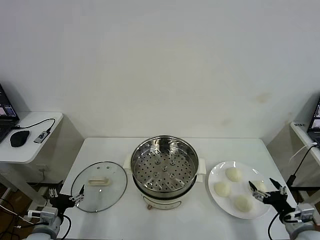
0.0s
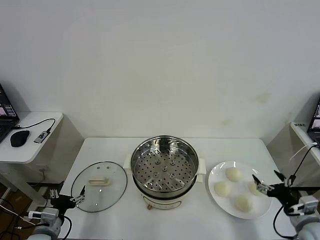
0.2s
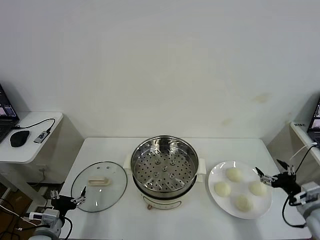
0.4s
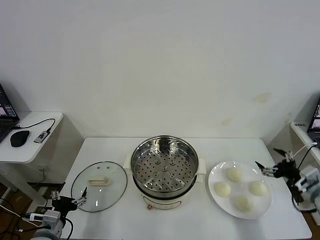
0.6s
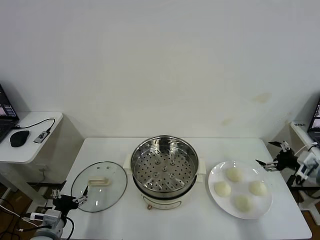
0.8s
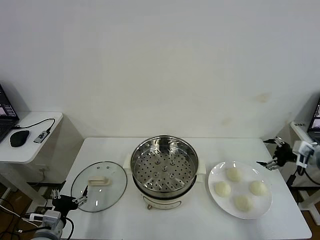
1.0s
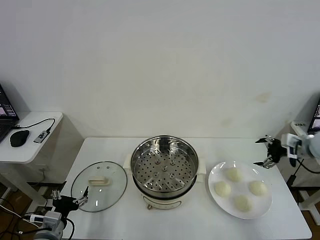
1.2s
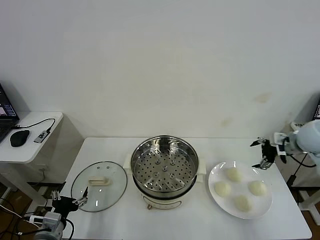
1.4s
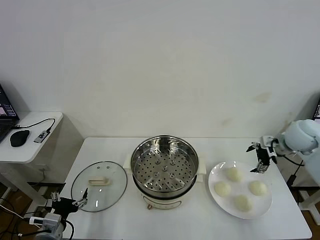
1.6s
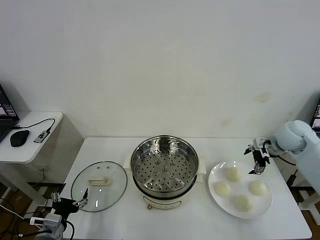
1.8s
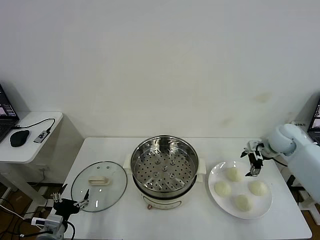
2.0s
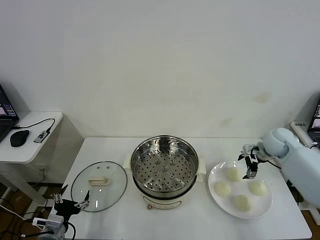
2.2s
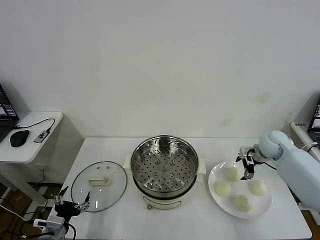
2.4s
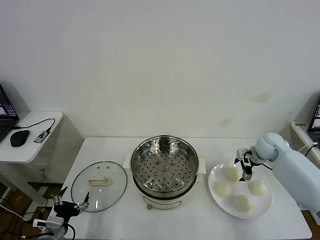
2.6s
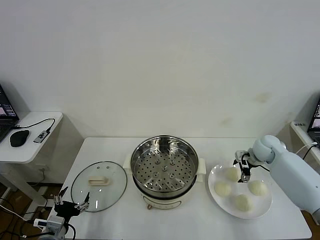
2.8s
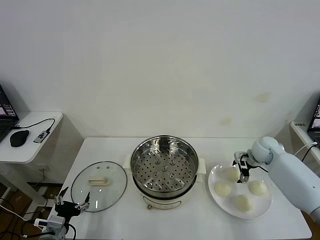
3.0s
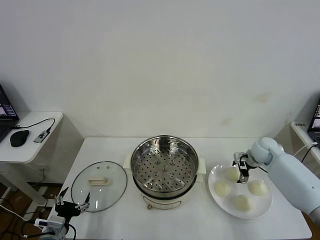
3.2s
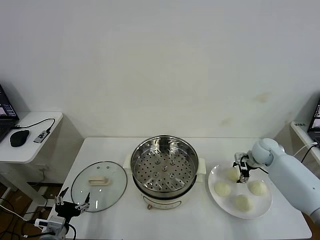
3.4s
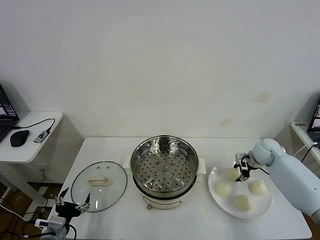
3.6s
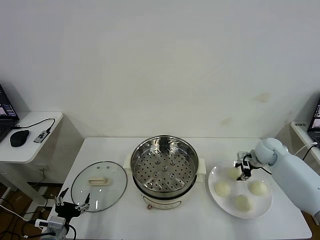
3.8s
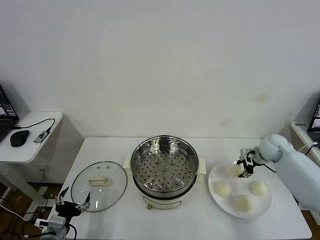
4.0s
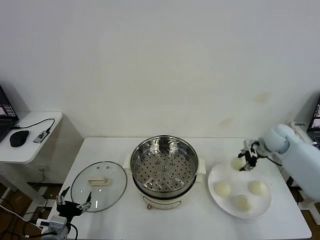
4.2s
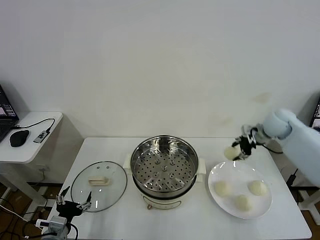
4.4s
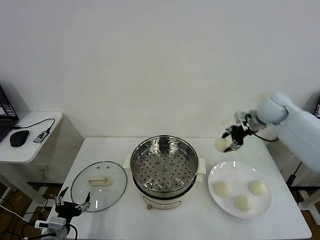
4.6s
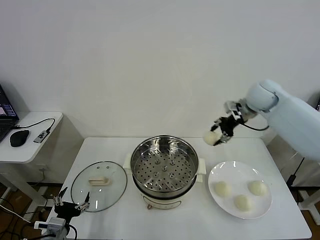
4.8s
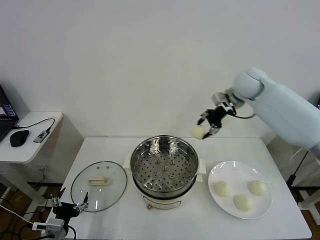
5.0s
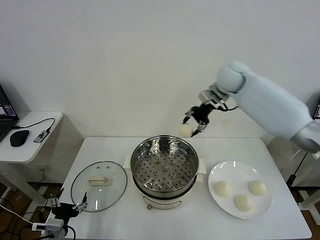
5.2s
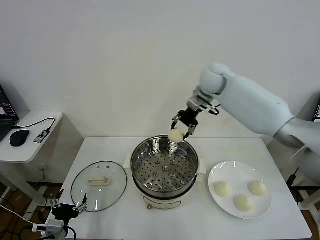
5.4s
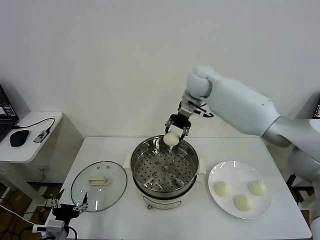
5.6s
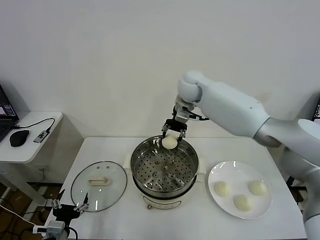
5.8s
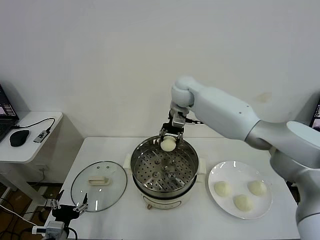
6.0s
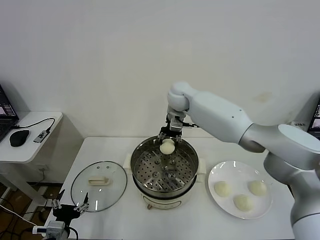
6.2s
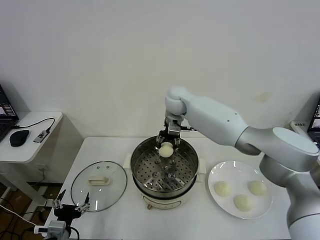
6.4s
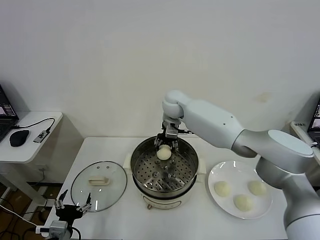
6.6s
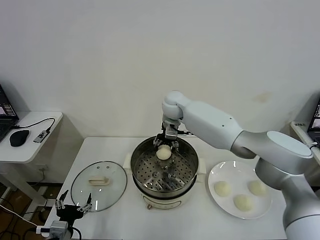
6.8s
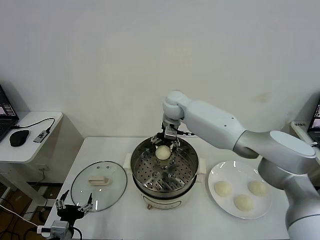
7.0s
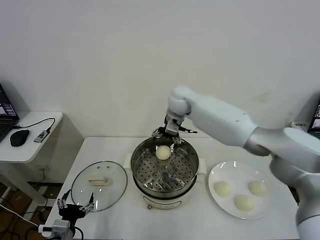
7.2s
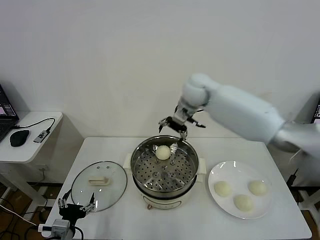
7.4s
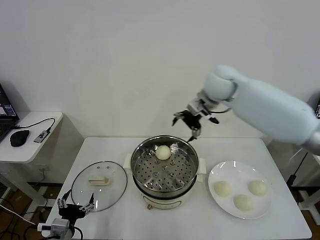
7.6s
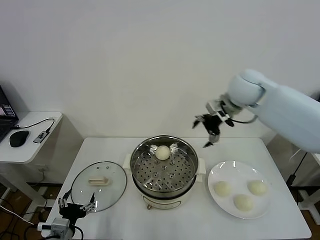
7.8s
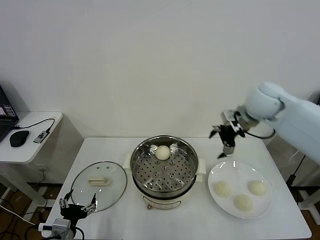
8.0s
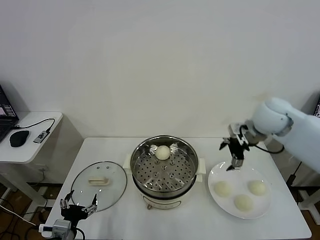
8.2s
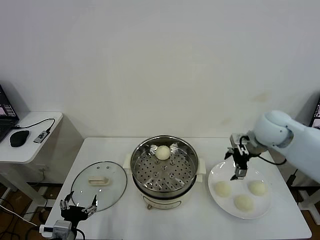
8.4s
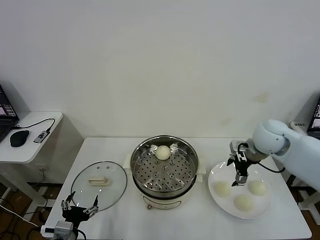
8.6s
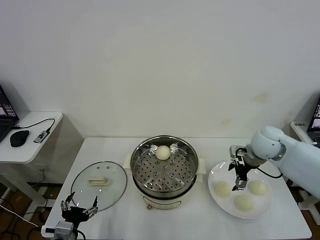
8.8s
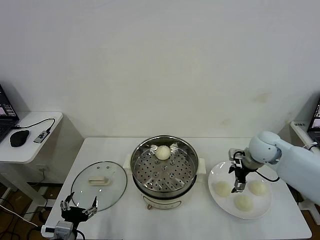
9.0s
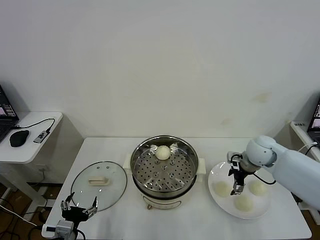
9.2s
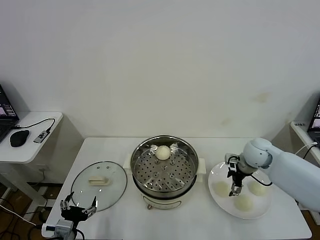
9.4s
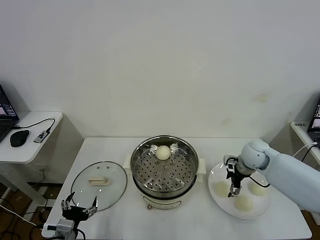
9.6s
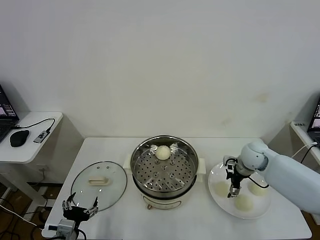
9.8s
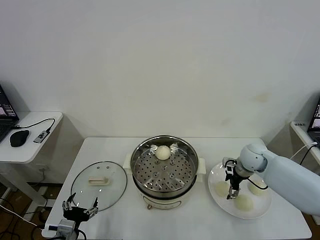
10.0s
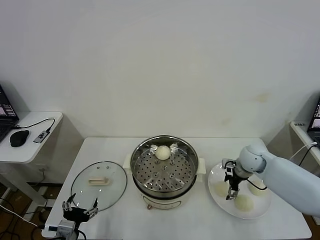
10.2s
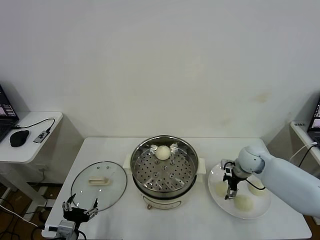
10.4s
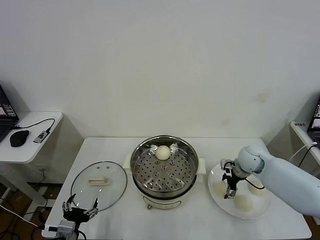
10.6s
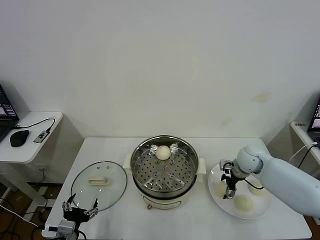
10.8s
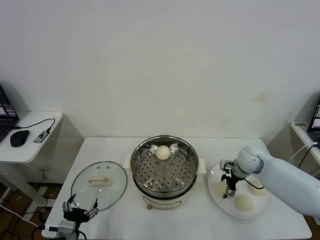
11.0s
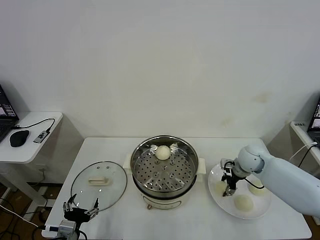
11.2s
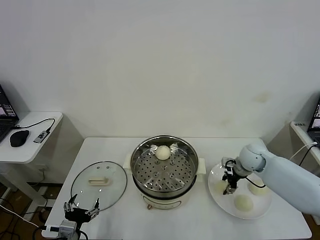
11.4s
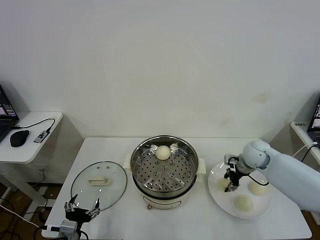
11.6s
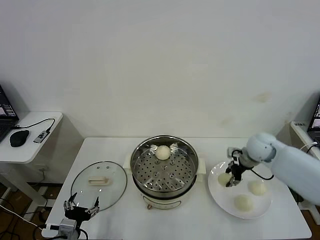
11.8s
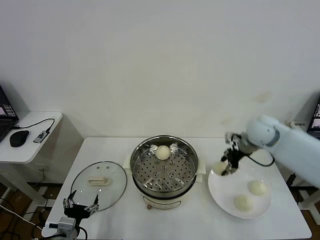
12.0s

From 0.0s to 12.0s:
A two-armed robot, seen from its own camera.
Task of the whole recording: take steamed baozi put them in steamer then cover it.
Step, from 0.0s to 3.8s: Grasp the baozi in the plate with right gripper.
Step, from 4.0s to 7.0s: Place the baozi on the steamer with right gripper.
Step, from 7.2s to 11.6s: Grasp the baozi in the plate with right gripper.
From 1.6s to 3.0s: The right gripper is displaced downward by approximately 10 cm.
From 3.0s to 4.4s: The right gripper travels upward by some 15 cm, and closes its fingers.
From 4.4s to 6.0s: The right gripper goes some 30 cm to the left.
From 6.0s to 7.6s: The right gripper heads to the right, upward and backward, covering some 20 cm, and opens.
From 7.6s to 9.0s: The right gripper goes approximately 25 cm downward, to the right and backward.
From 9.0s to 10.4s: The right gripper moves downward, roughly 5 cm.
From 10.4s to 12.0s: The right gripper is displaced upward by approximately 15 cm, and closes.

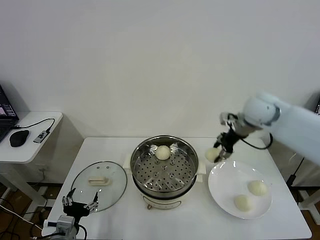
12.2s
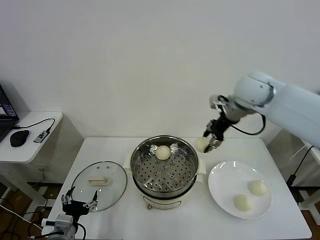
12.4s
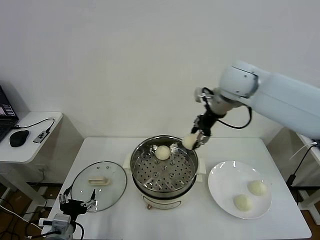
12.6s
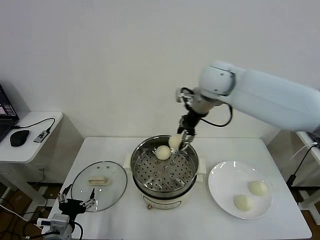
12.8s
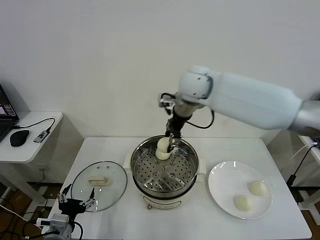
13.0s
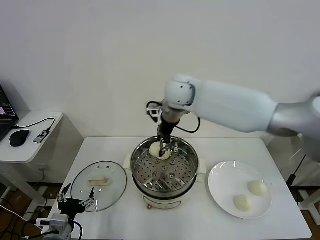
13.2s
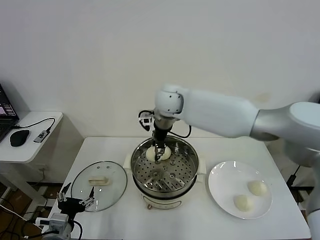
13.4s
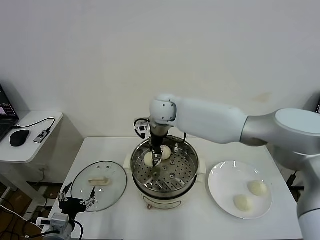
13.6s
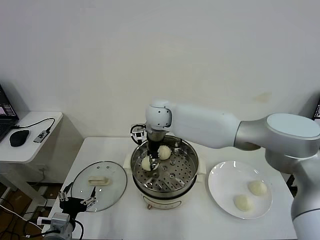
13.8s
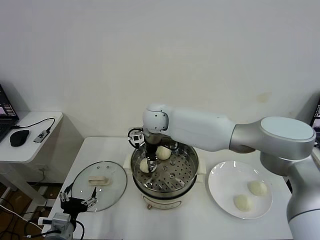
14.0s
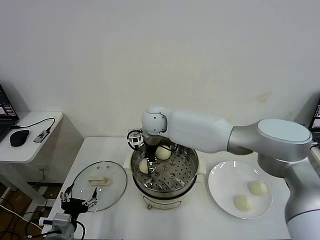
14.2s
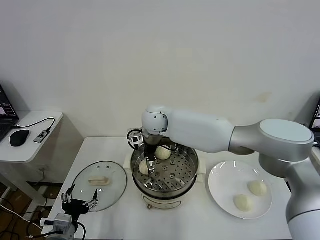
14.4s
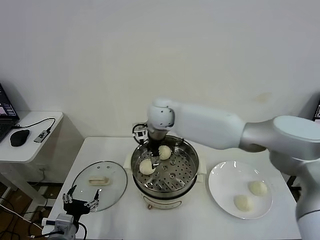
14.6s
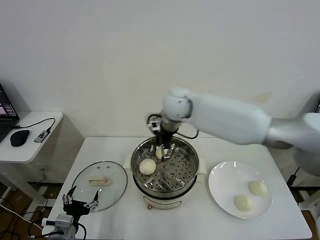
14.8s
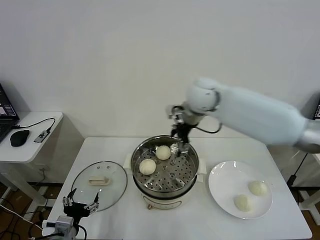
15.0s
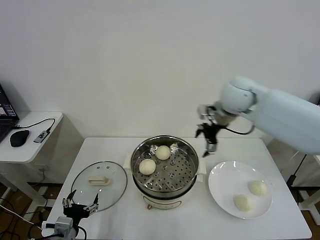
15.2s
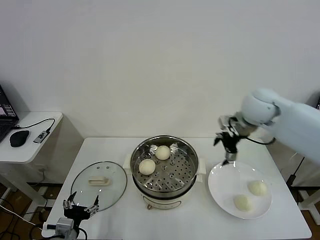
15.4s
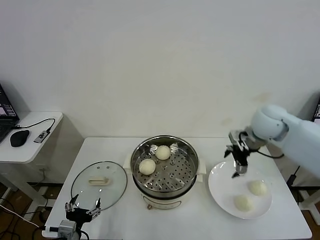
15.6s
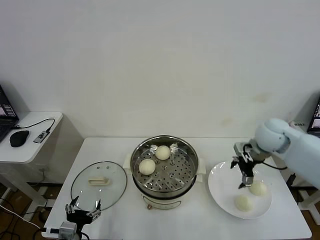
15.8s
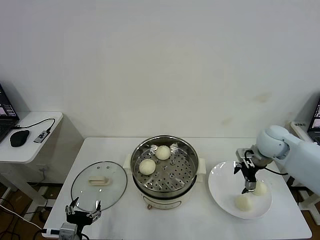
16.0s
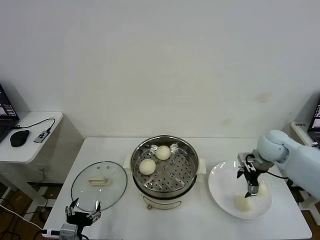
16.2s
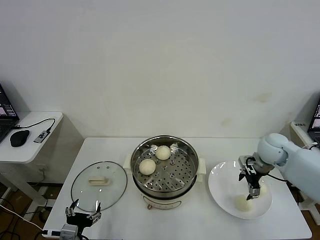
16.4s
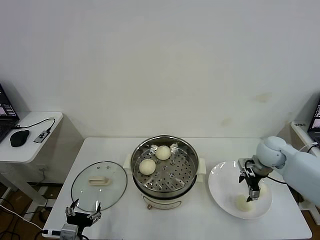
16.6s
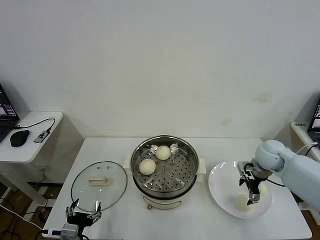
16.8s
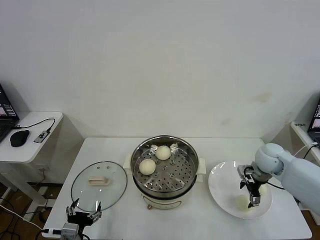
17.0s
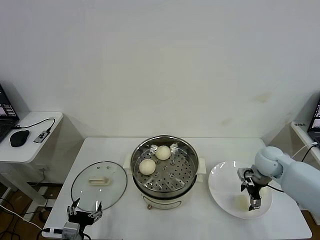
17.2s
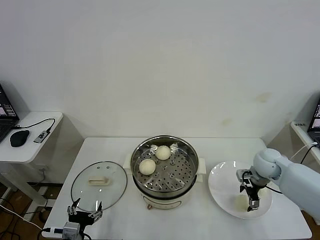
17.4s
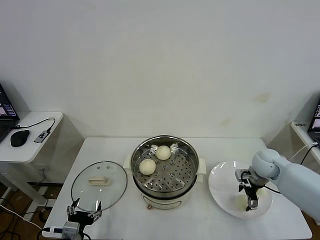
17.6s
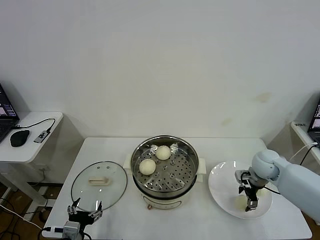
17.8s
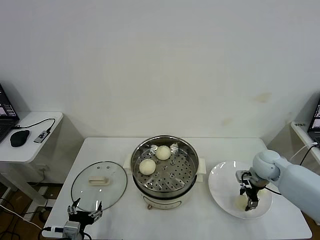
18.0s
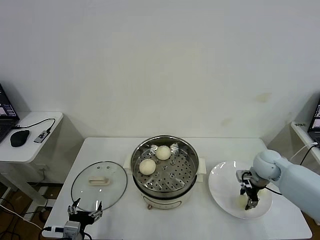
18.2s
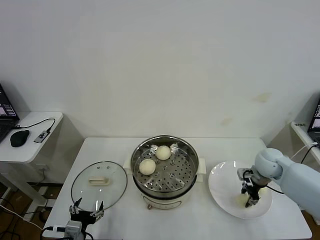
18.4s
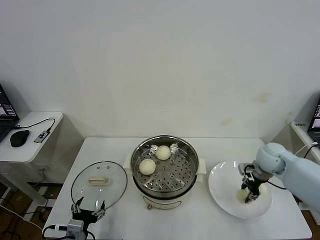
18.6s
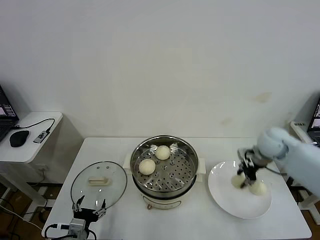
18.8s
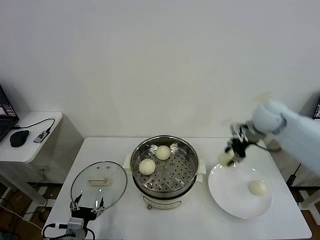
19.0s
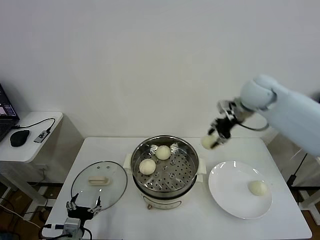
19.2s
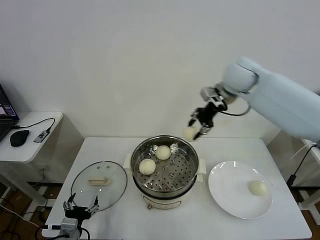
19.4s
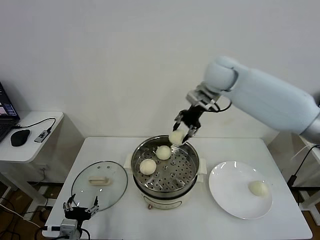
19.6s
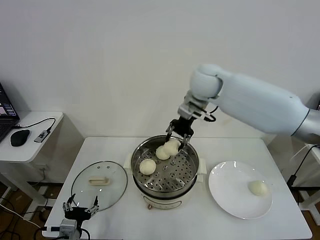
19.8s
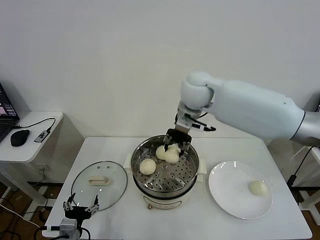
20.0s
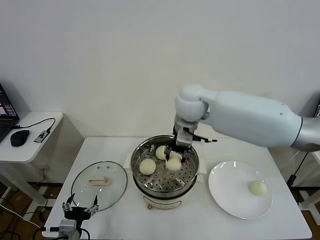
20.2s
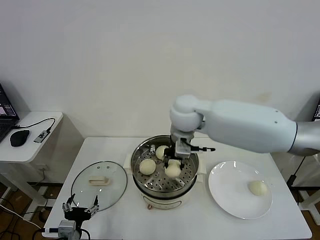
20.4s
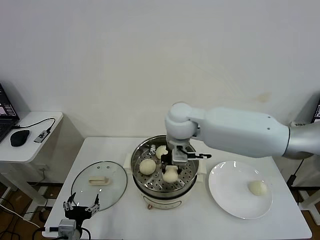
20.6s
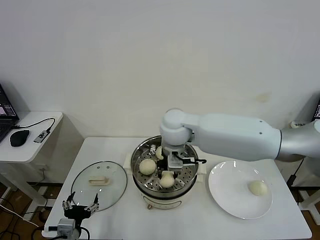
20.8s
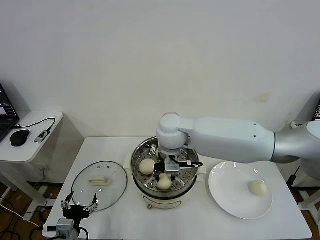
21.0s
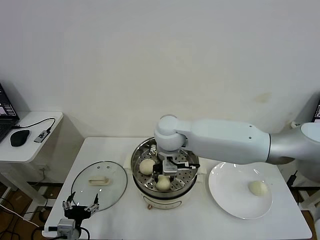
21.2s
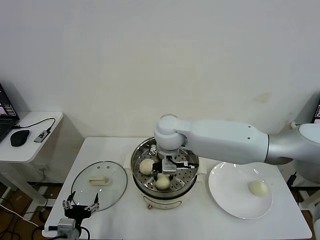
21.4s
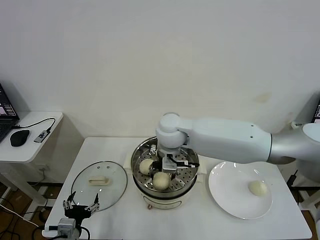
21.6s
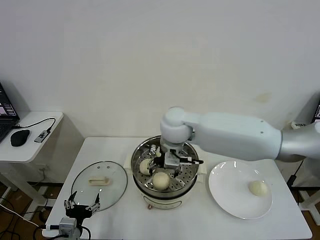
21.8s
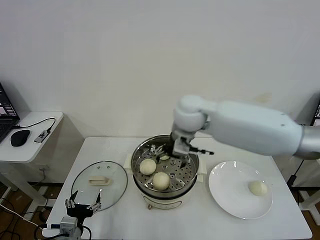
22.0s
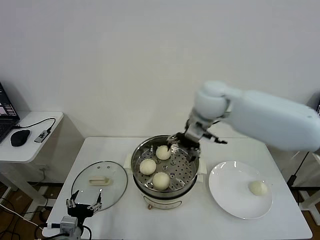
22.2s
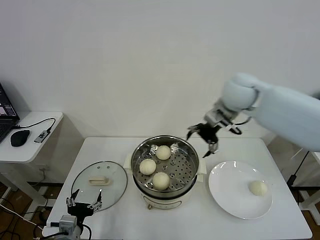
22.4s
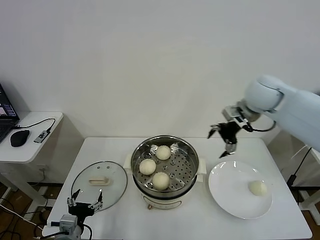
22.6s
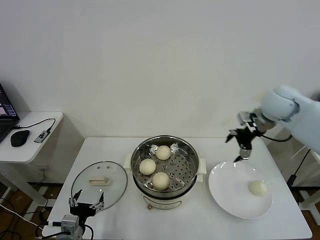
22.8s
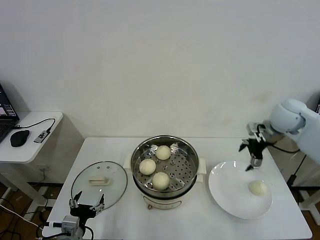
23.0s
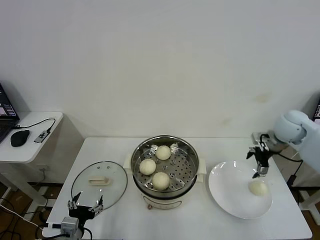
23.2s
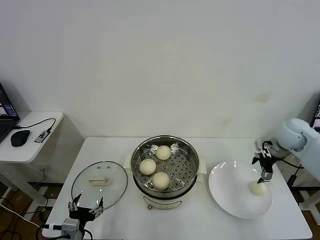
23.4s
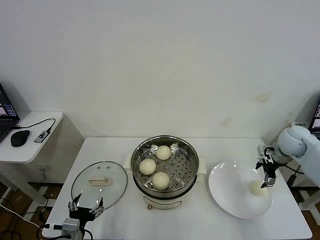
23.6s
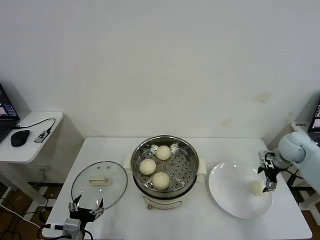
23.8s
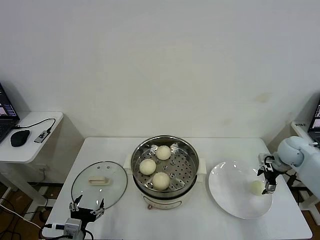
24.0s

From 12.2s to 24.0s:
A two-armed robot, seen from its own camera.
Task of the whole recording: take steamed baozi put them in steamer then cover it.
Step, from 12.2s to 14.4s: Place the baozi on the steamer with right gripper.
Step, from 14.6s to 18.6s: Grasp the baozi in the plate with right gripper.
Step, from 18.8s to 21.8s: Place the baozi on the steamer with right gripper.
From 12.2s to 13.6s: The right gripper is displaced to the left by roughly 25 cm.
From 13.6s to 15.2s: The right gripper shifts about 25 cm to the right, and opens its fingers.
From 15.2s to 16.6s: The right gripper heads downward and to the right, covering some 25 cm.
From 16.6s to 18.2s: The right gripper closes its fingers.
From 18.2s to 19.6s: The right gripper shifts approximately 35 cm upward, to the left and forward.
From 19.6s to 21.0s: The right gripper travels to the left, backward and downward by some 20 cm.
From 21.0s to 22.6s: The right gripper moves to the right, approximately 25 cm, and opens.
From 22.6s to 24.0s: The right gripper goes roughly 25 cm downward and to the right.
